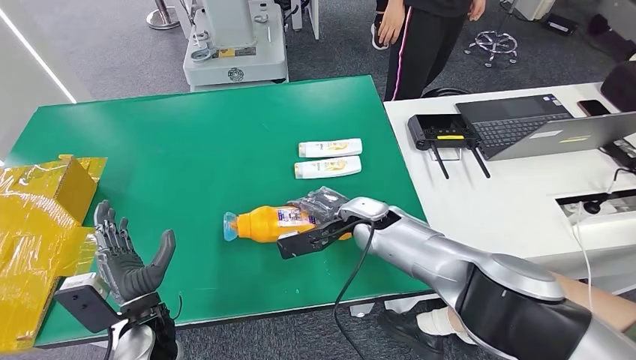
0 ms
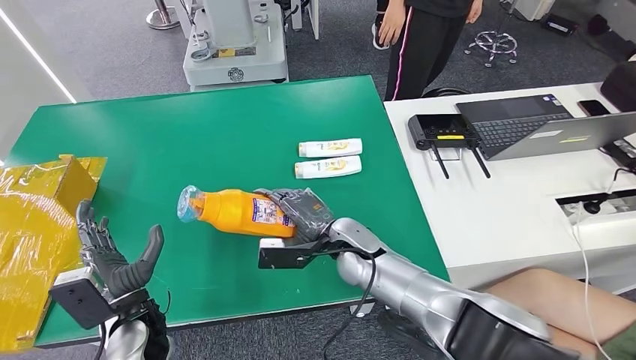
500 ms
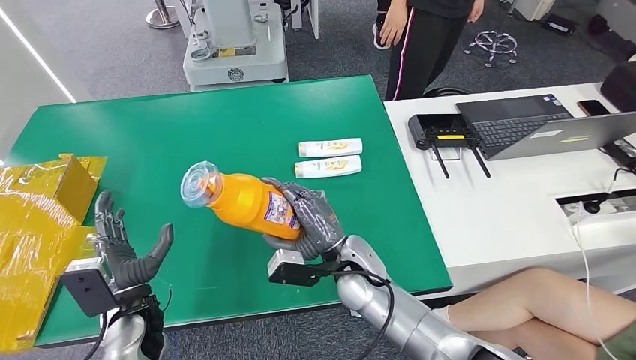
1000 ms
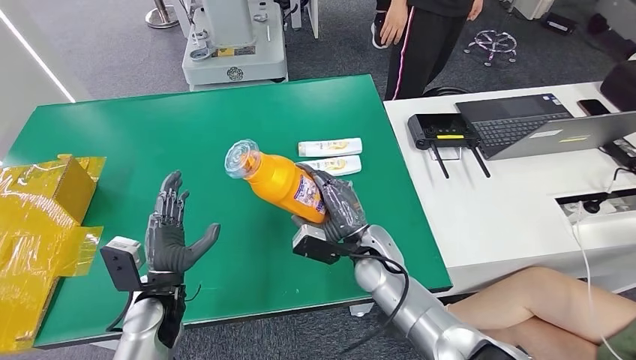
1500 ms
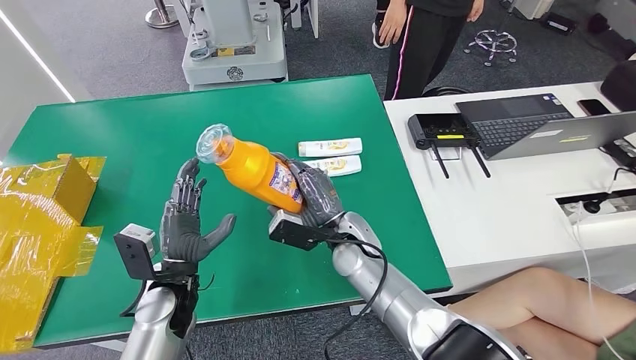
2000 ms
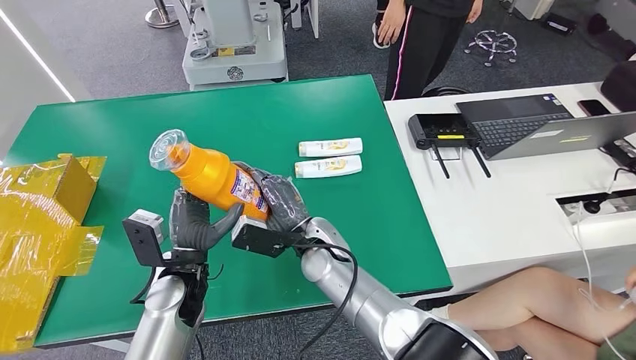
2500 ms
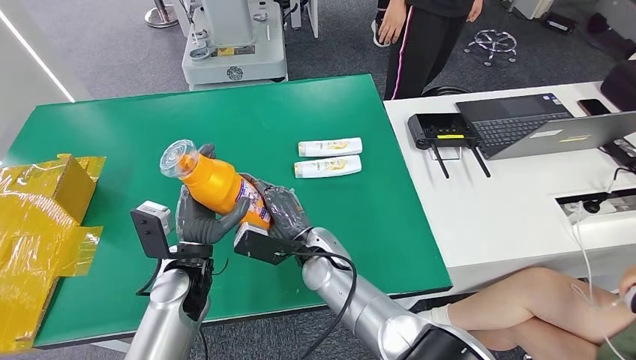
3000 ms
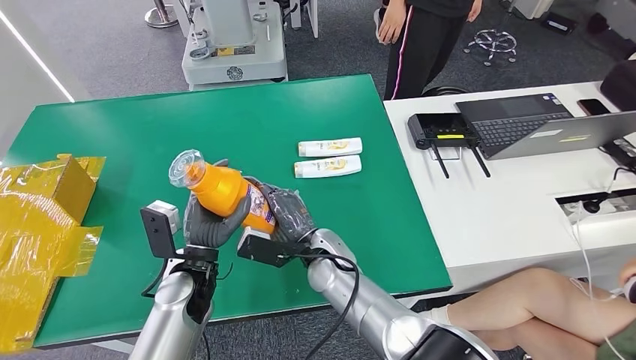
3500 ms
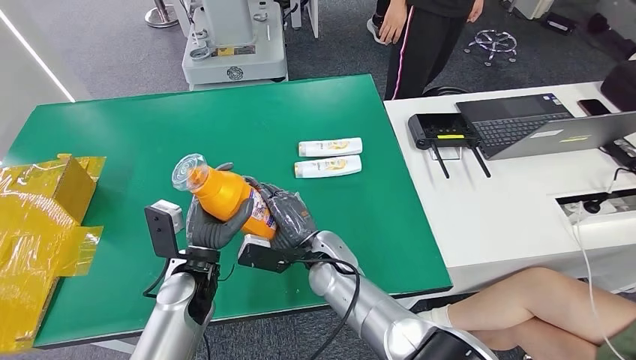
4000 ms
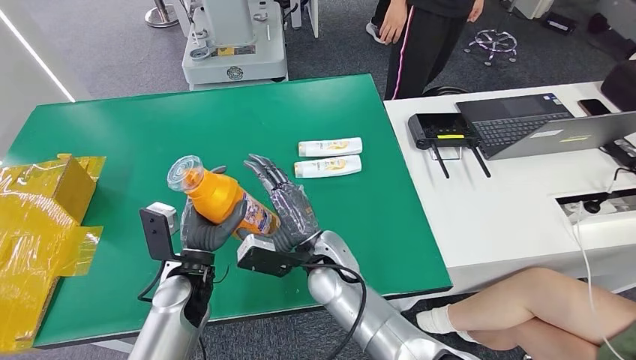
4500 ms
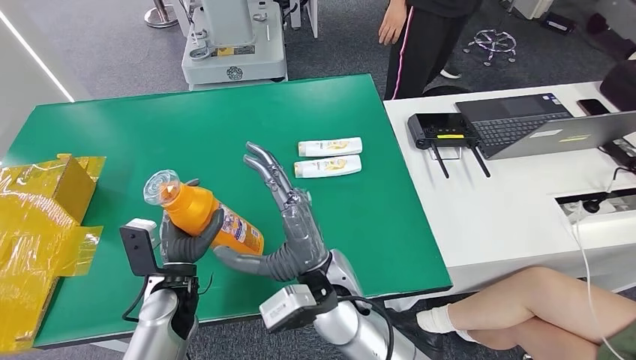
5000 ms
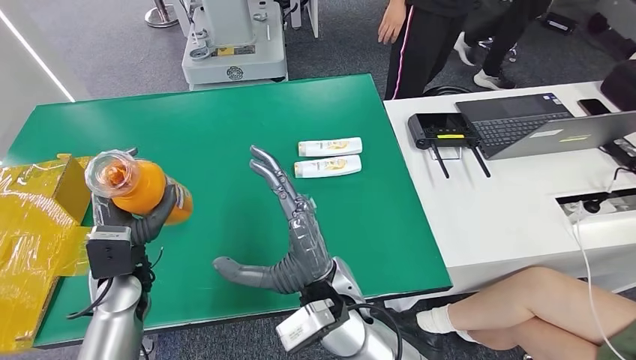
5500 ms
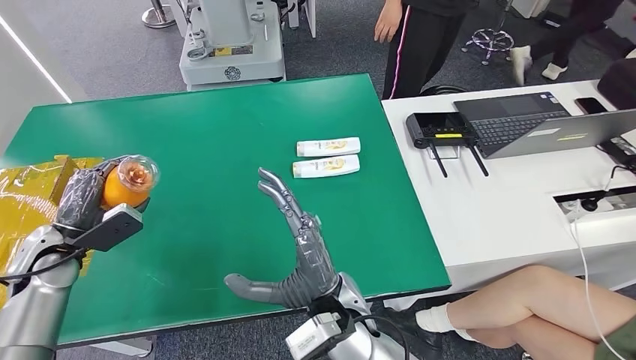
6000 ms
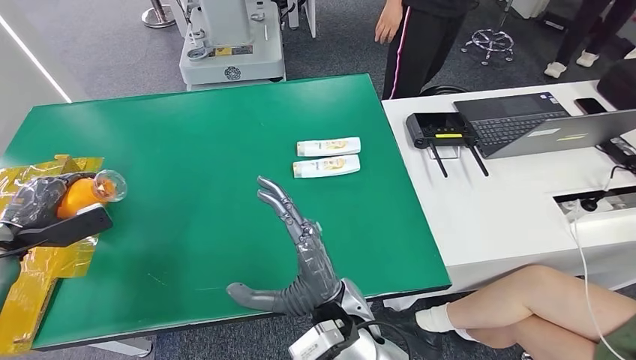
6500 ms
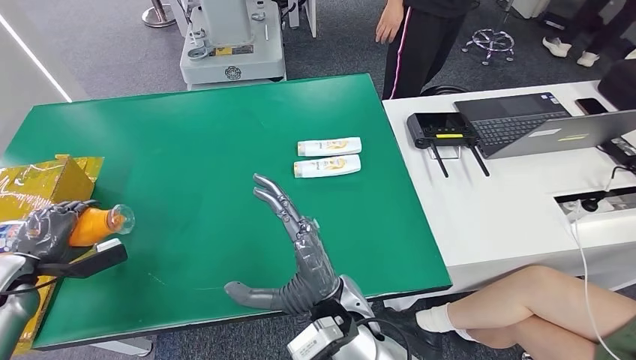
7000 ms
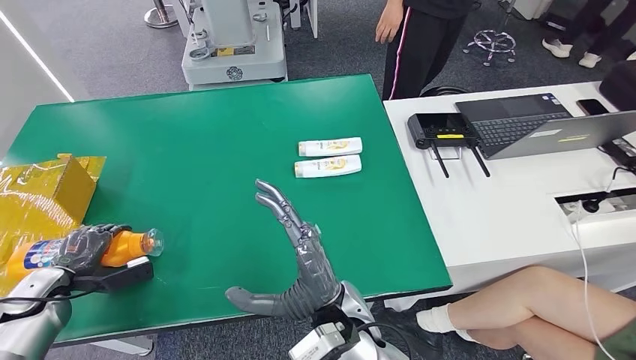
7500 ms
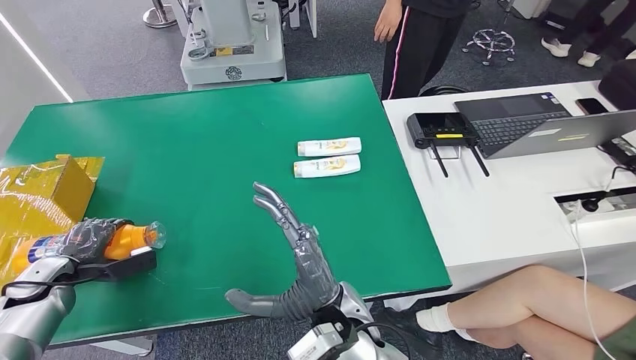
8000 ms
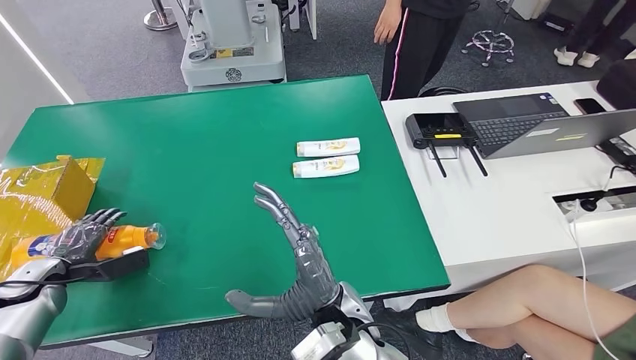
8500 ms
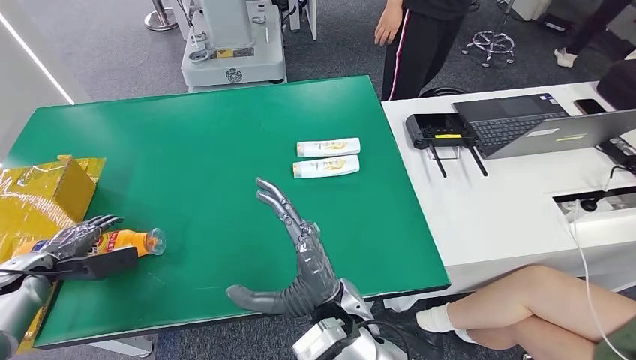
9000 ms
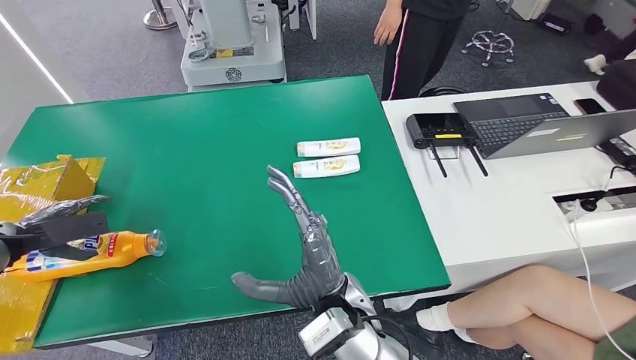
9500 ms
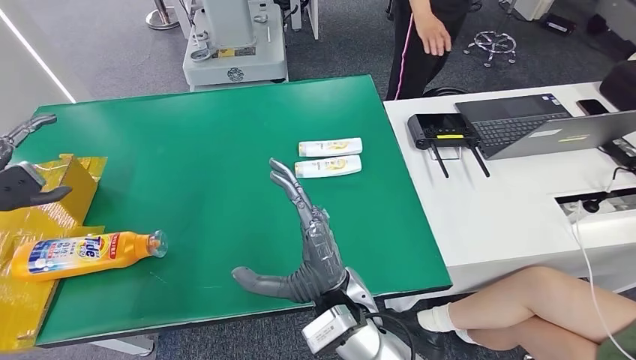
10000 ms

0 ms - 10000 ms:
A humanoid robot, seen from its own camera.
Step, 1500 ms - 10000 ms: Turn the bottle to the front side.
2000 ms - 4000 ms: The right hand shifts by about 5 cm.
6000 ms - 8000 ms: The left hand heads to the left and downward, covering roughly 10 cm.
8000 ms - 10000 ms: The left hand travels upward by roughly 15 cm.

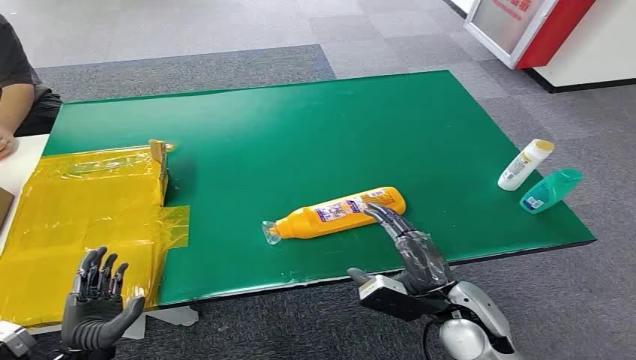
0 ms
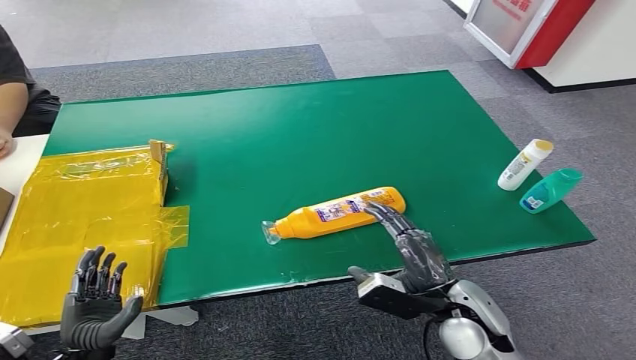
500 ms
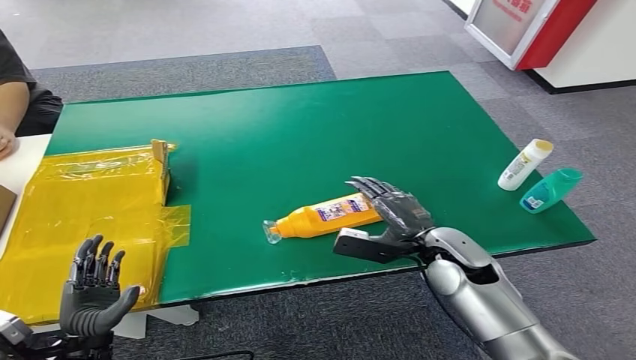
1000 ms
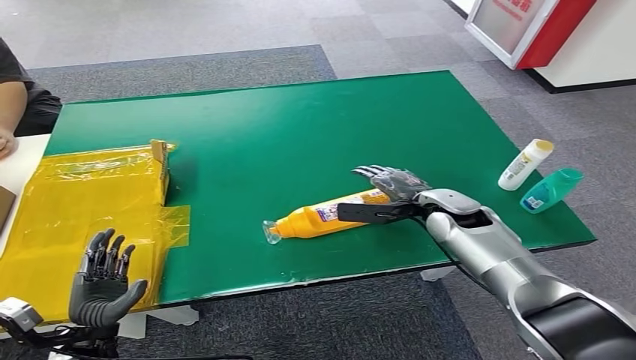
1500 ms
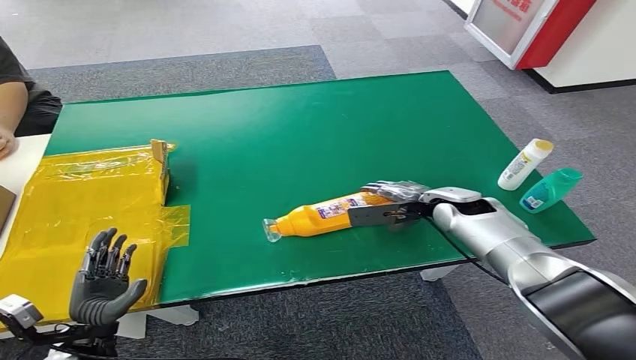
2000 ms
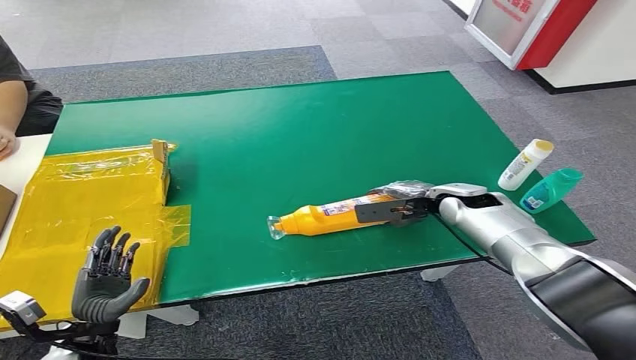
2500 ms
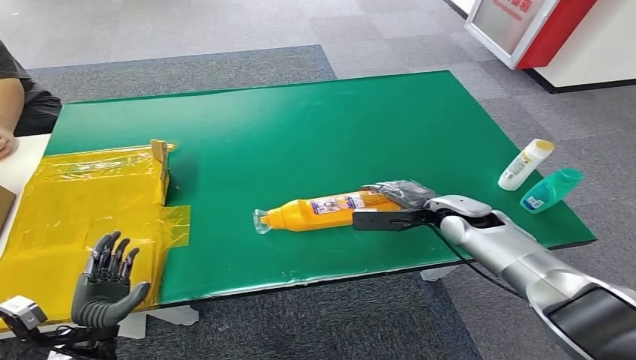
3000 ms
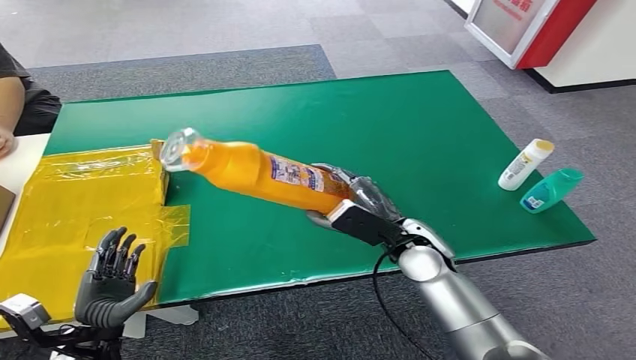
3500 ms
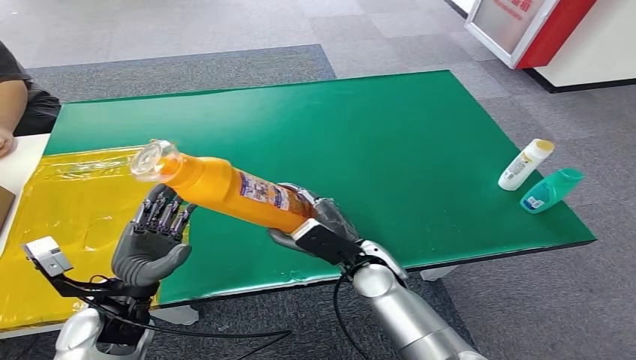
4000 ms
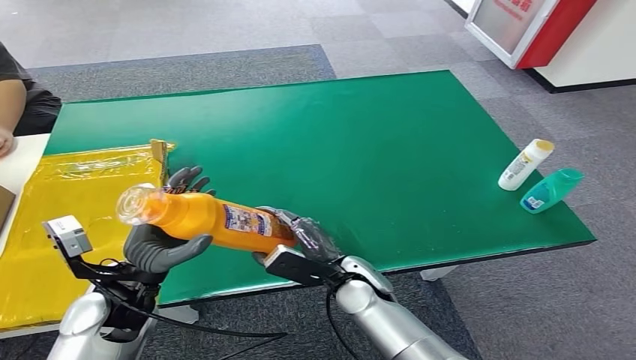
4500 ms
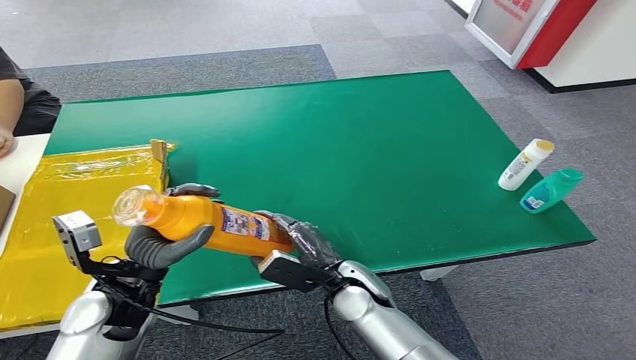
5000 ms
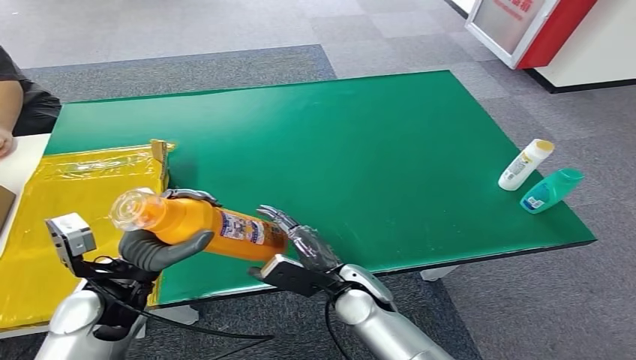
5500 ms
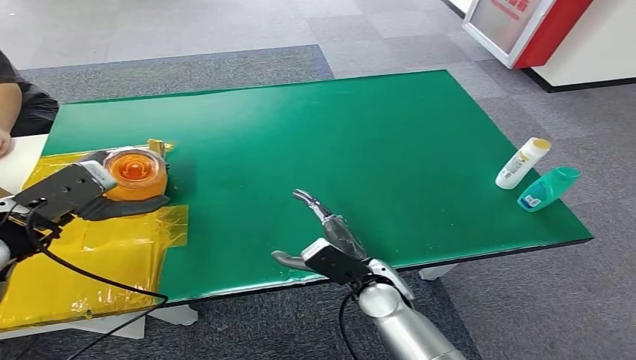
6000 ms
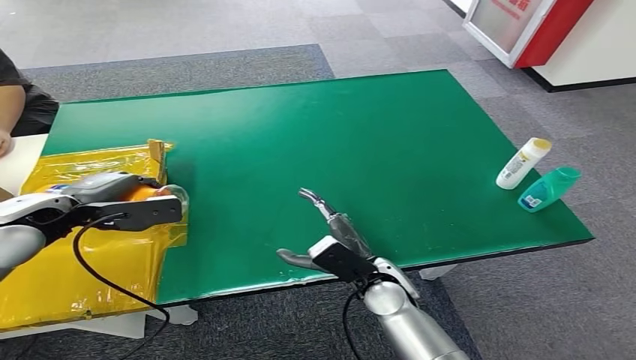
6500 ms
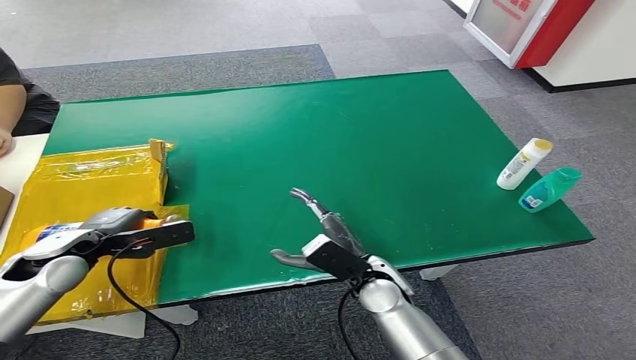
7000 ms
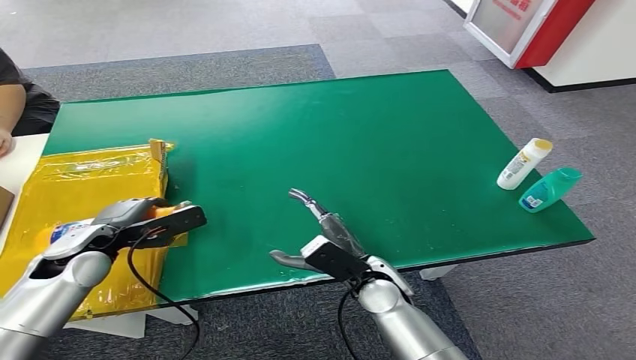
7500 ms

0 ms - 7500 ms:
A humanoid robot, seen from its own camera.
Step, 0 ms - 3500 ms: Pick up the bottle from the table.
Step, 4000 ms - 7500 ms: Turn the bottle to the front side.
4000 ms - 5500 ms: The right hand shifts by approximately 5 cm.
5500 ms - 7500 ms: The left hand heads forward and to the left, covering roughly 10 cm, and travels upward and back again, about 10 cm each way.
